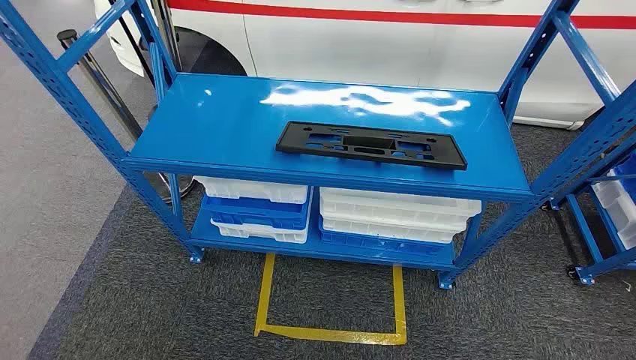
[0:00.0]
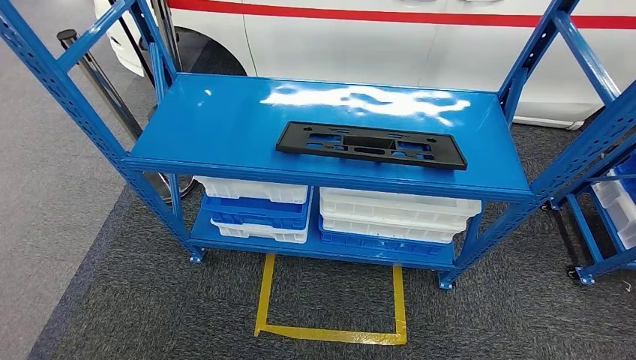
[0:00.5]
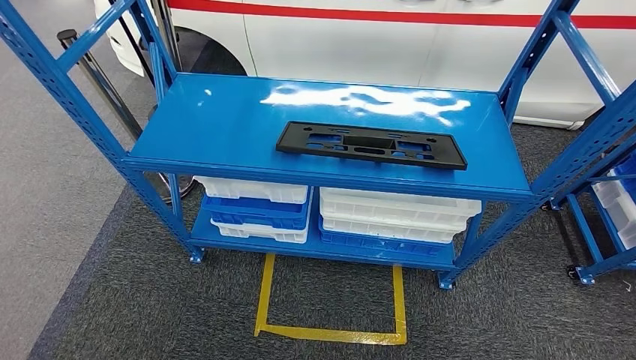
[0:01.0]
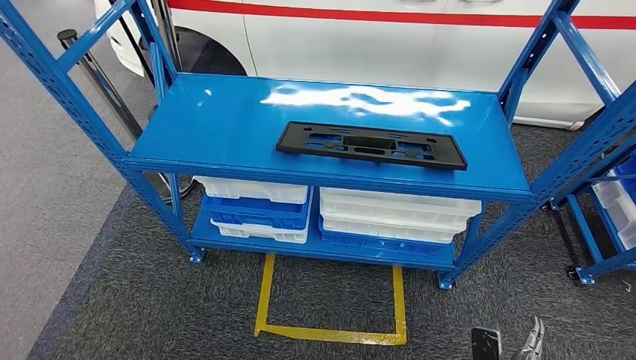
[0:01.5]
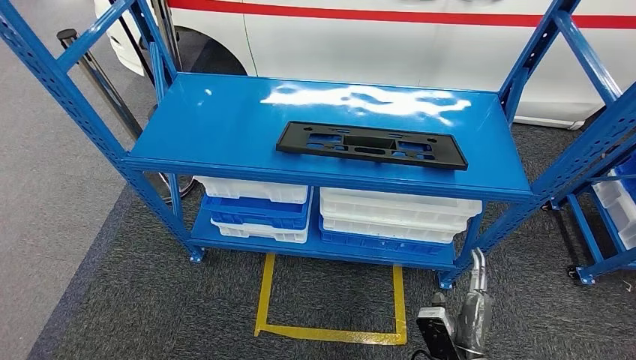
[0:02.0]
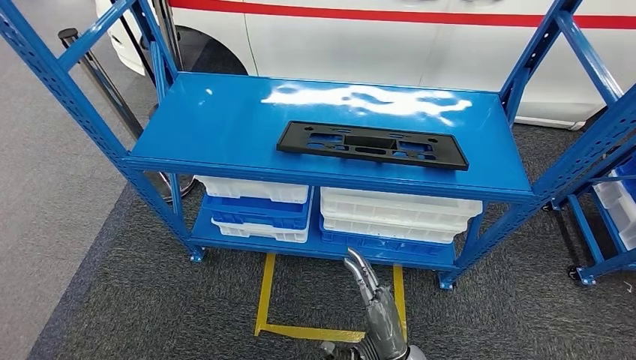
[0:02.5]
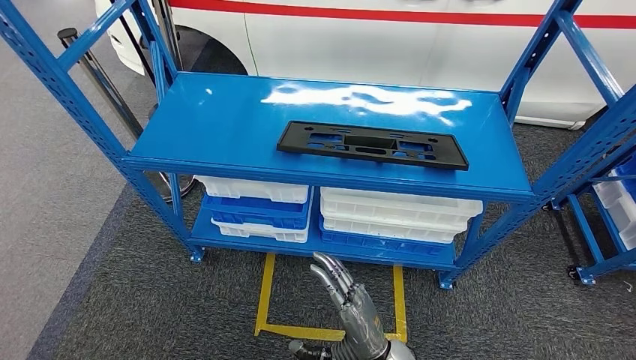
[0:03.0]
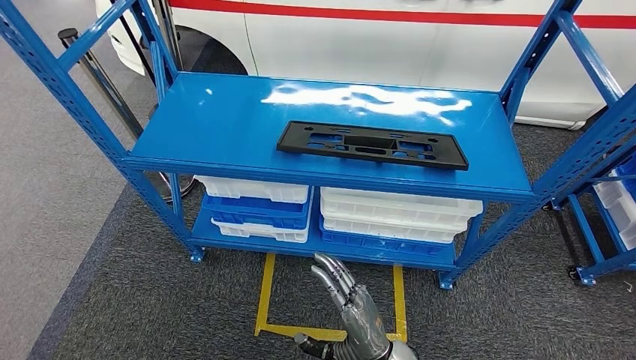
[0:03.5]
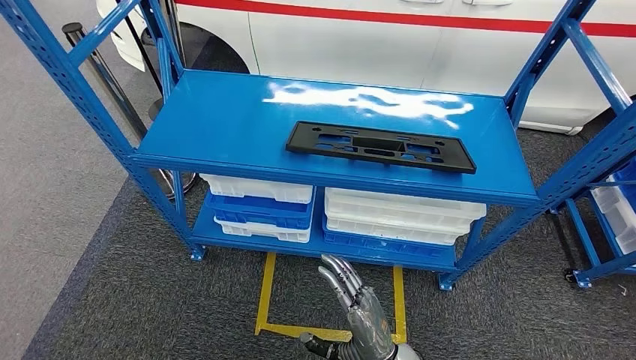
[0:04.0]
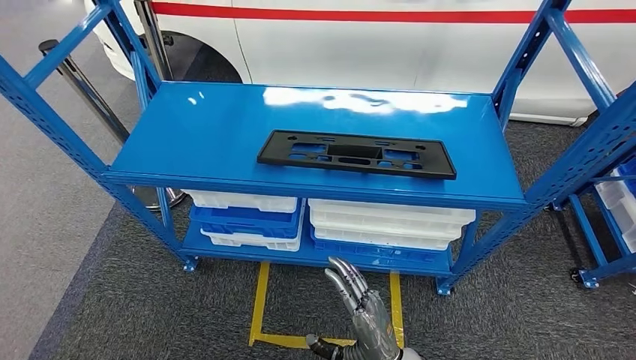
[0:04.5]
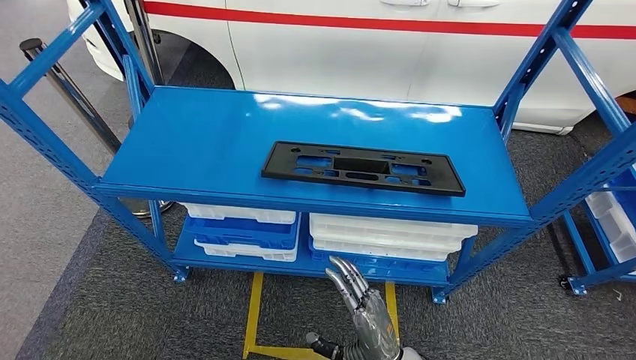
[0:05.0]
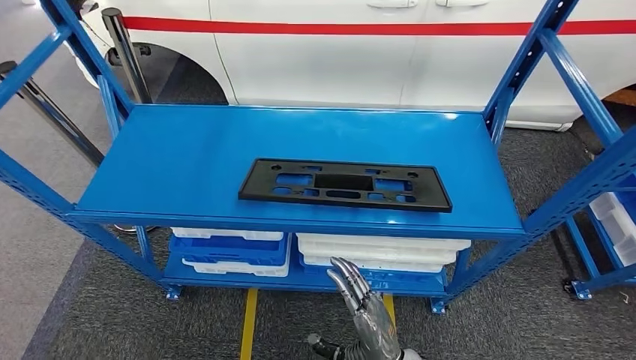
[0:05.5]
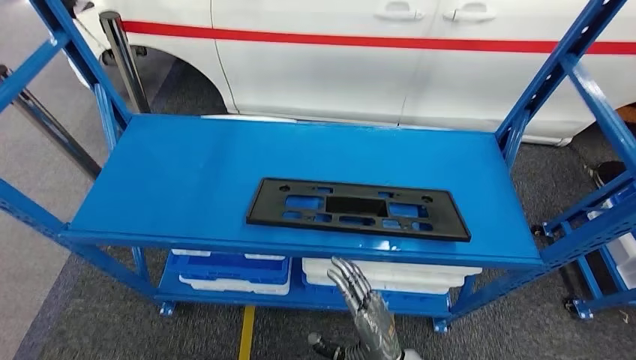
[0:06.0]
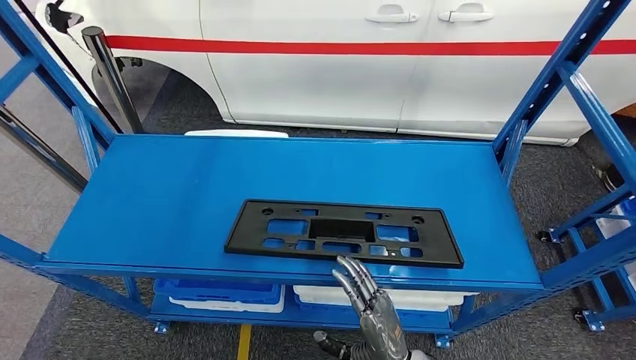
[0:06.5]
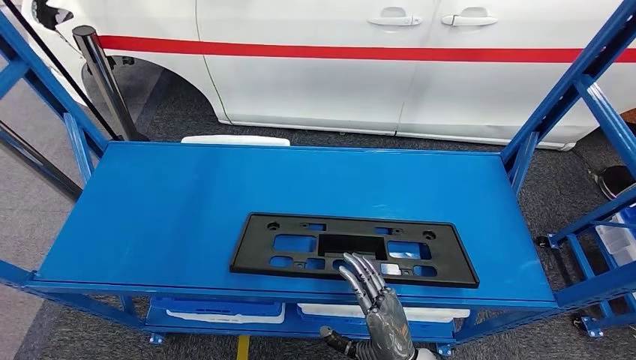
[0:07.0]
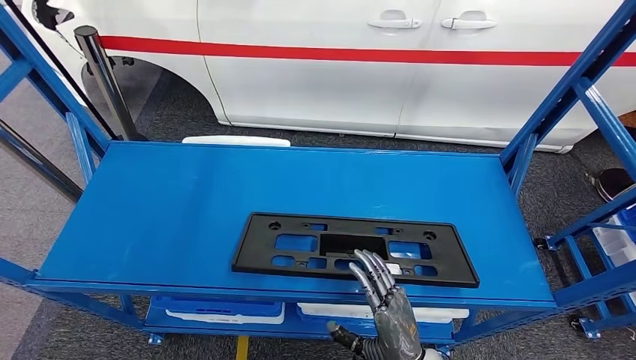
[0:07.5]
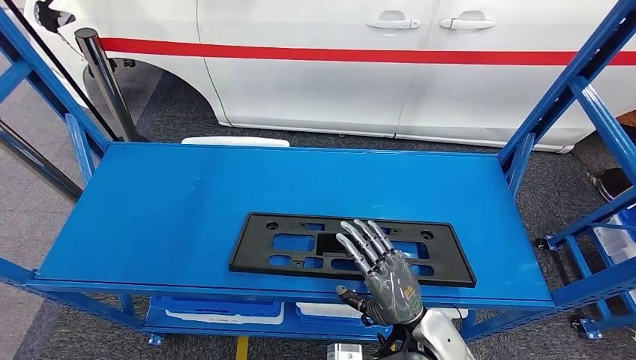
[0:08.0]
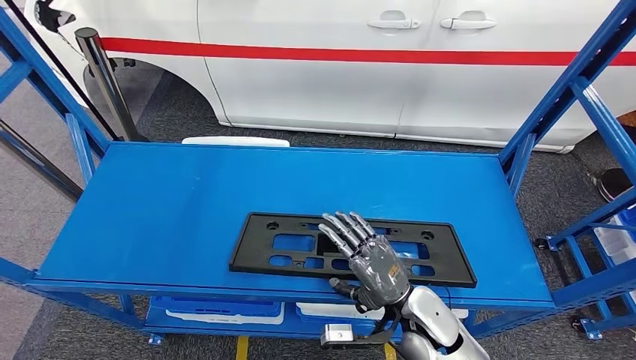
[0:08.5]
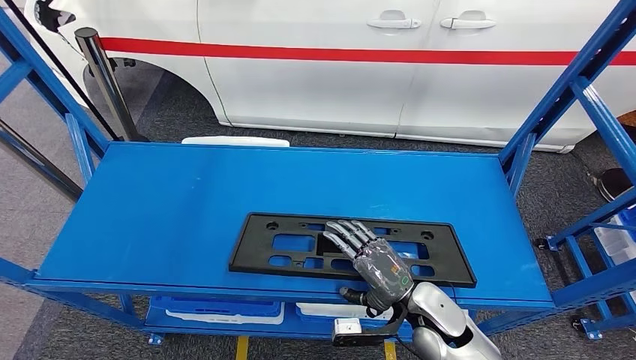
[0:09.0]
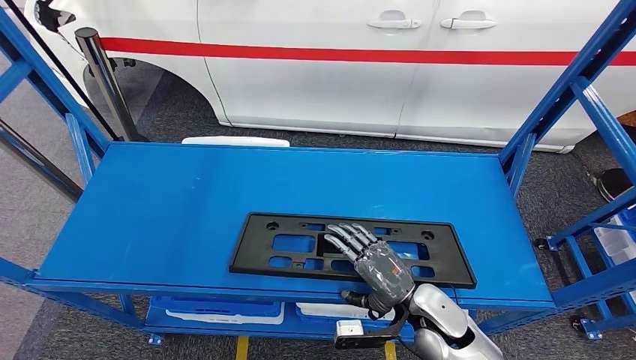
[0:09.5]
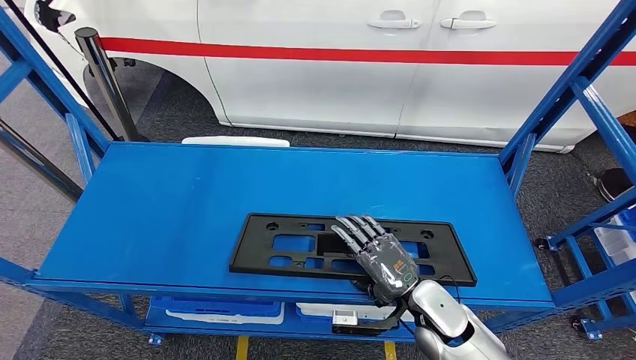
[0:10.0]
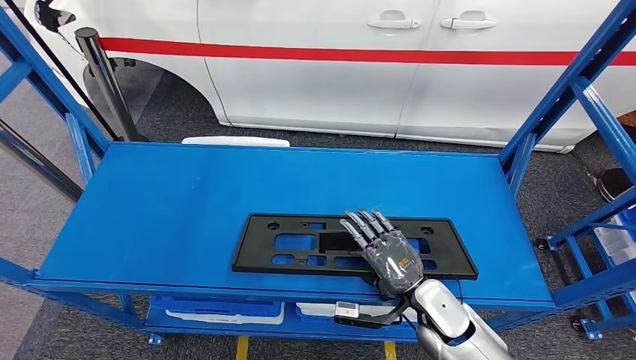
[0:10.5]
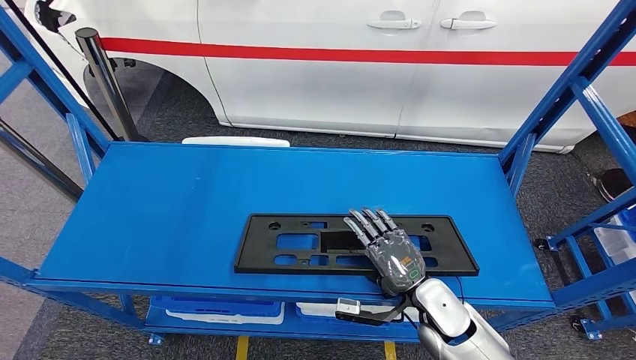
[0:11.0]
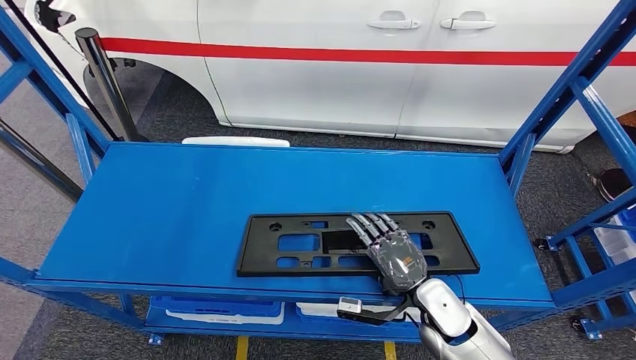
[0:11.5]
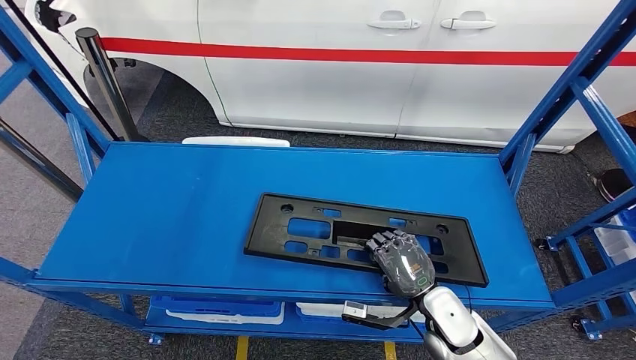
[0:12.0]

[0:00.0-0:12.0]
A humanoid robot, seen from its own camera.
0:02.0 to 0:04.0: The right hand is displaced to the left and upward by about 15 cm.
0:10.0 to 0:12.0: The hands move only a little.

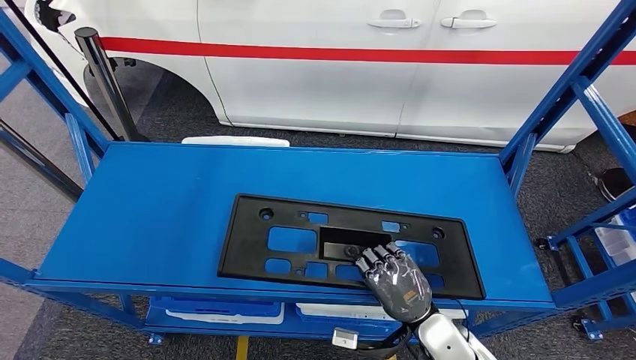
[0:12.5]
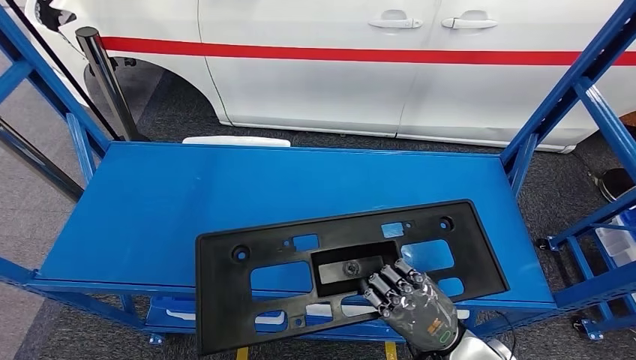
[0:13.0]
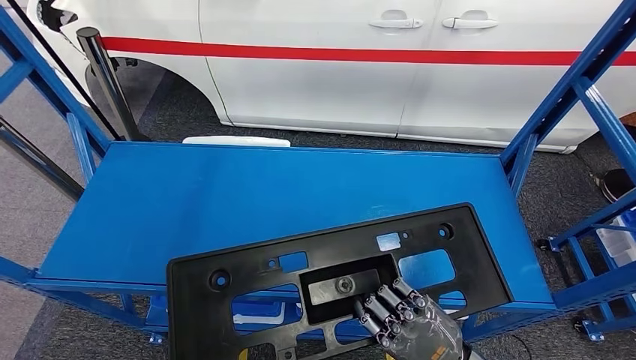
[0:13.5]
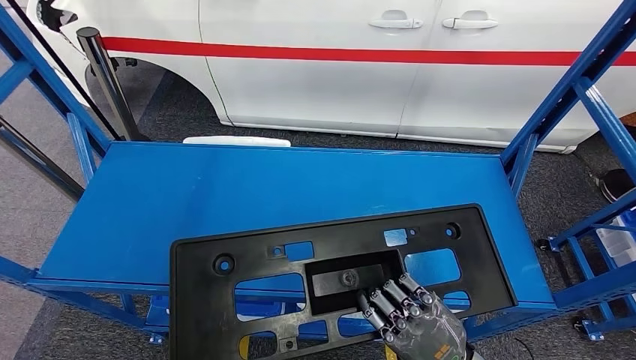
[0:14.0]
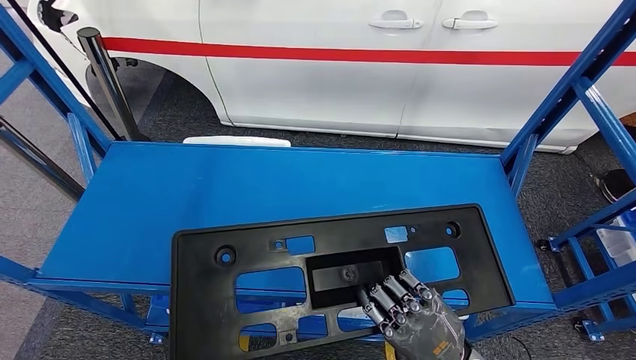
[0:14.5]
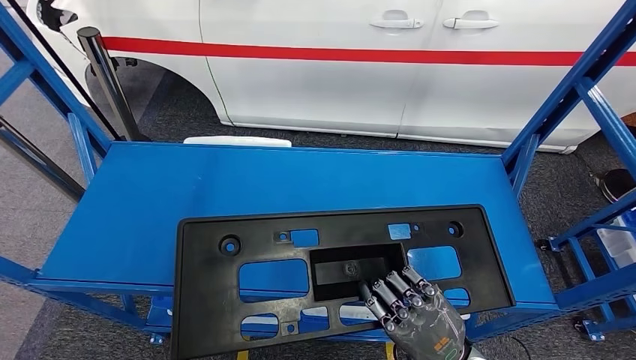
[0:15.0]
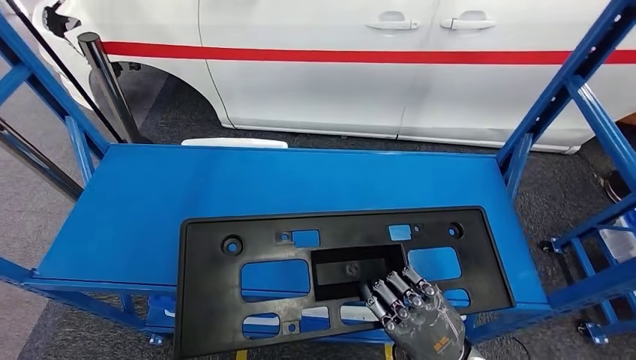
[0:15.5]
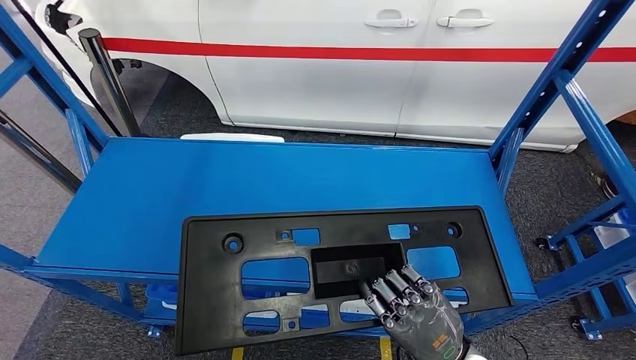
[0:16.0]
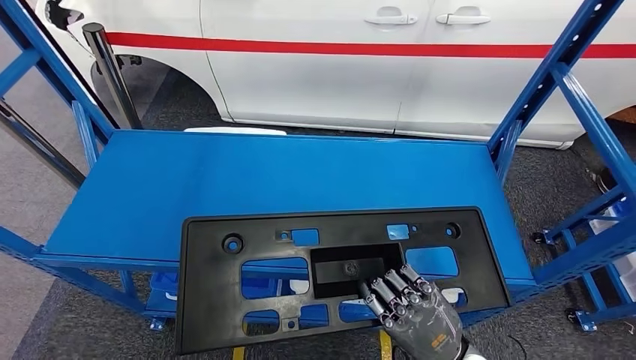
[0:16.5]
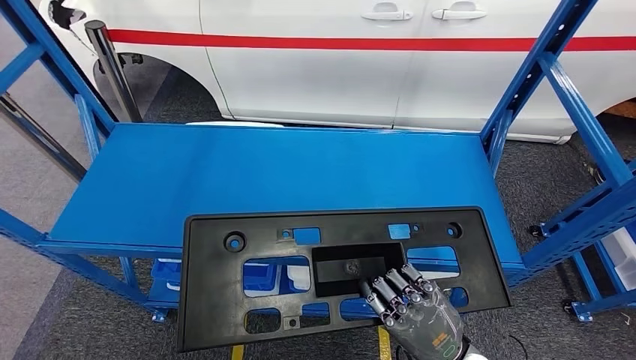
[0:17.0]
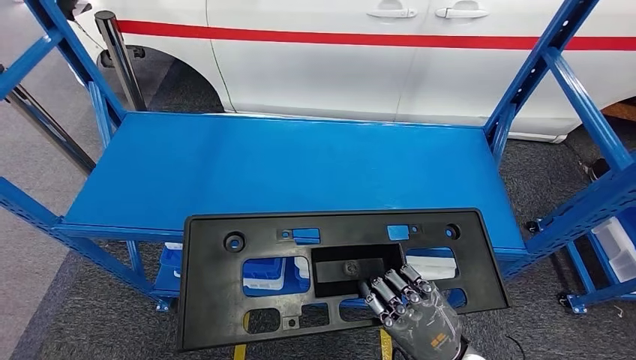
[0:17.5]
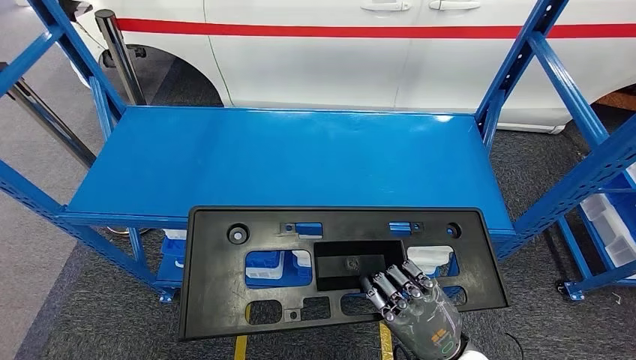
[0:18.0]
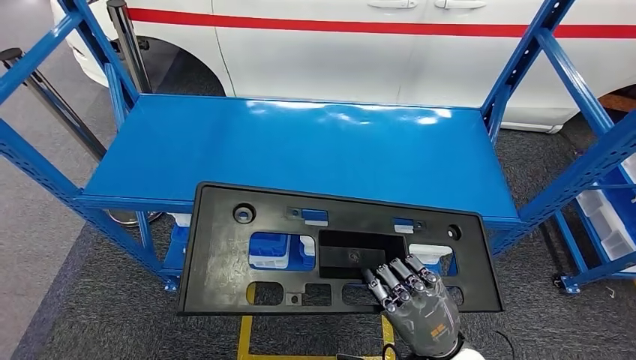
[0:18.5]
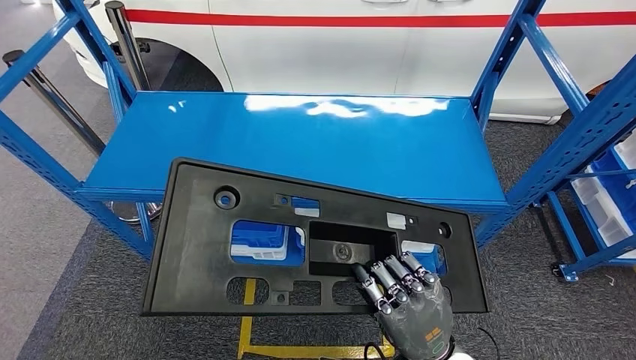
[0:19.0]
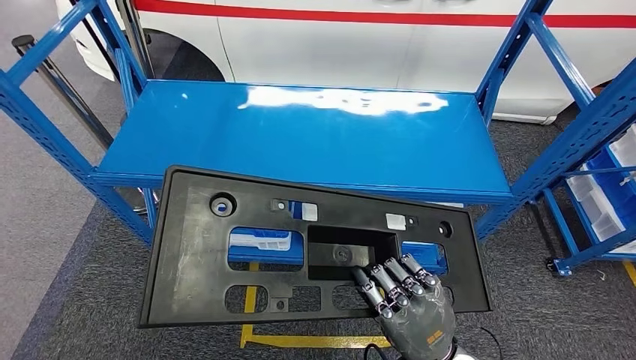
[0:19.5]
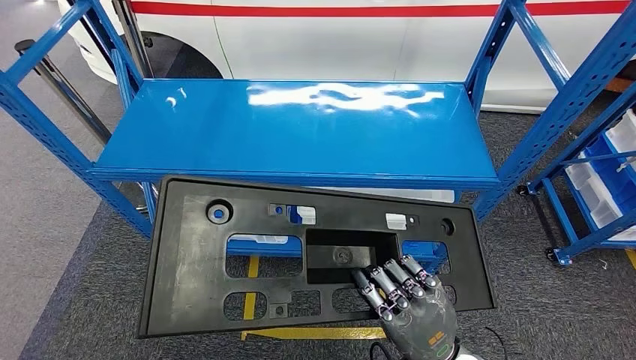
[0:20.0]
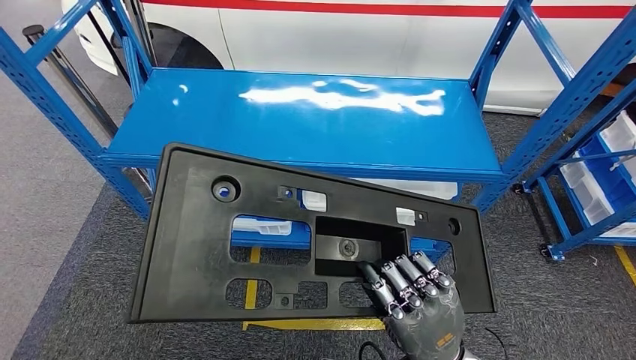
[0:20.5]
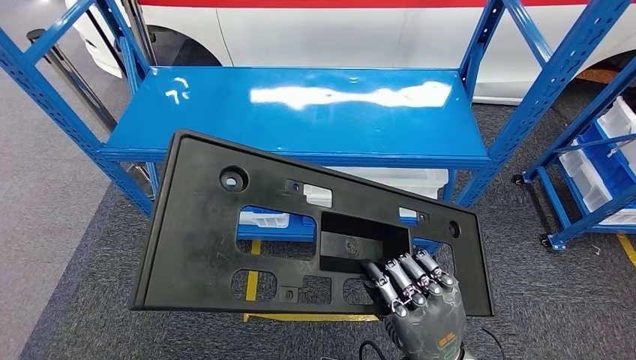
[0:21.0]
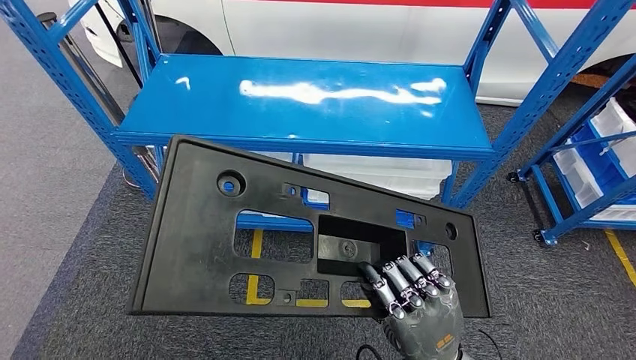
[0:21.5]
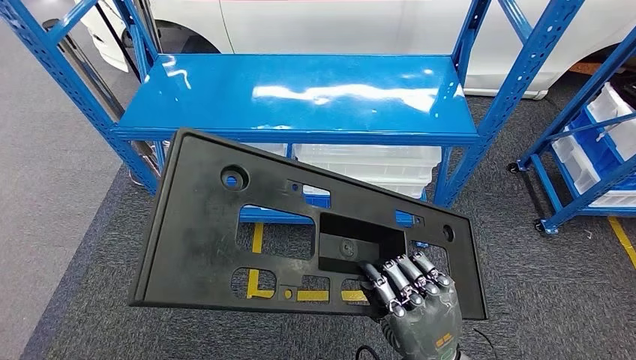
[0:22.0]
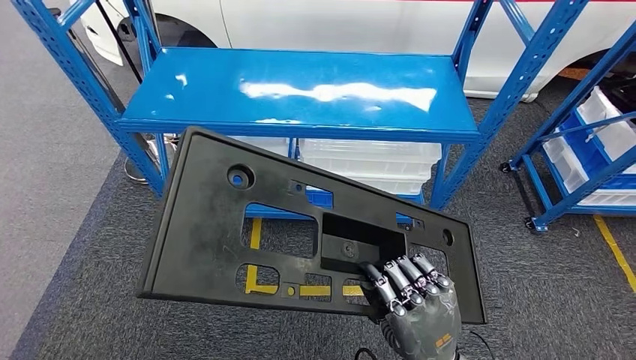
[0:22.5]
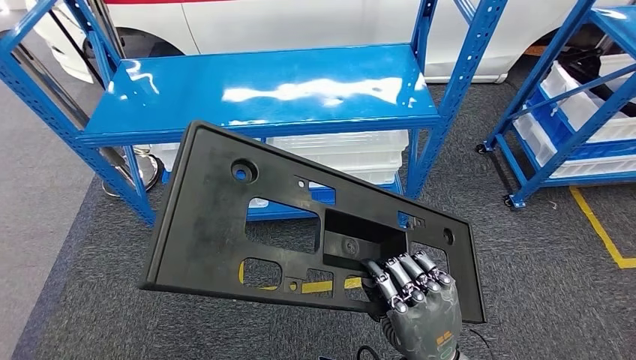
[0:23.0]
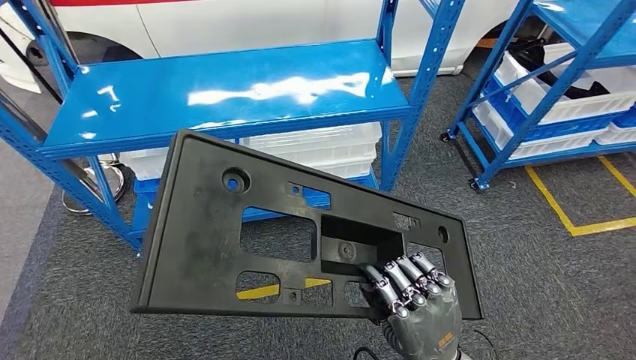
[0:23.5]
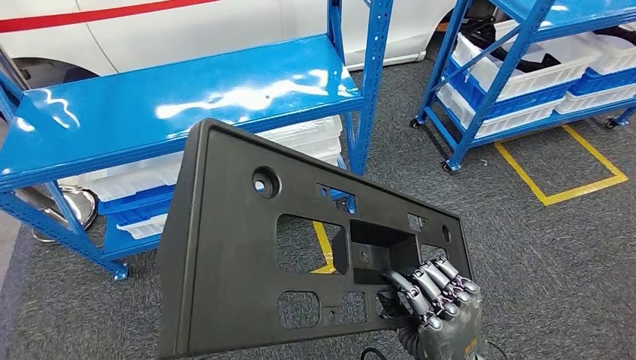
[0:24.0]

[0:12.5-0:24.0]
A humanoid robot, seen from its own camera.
0:12.5 to 0:14.5: The right hand shifts about 10 cm upward and backward.
